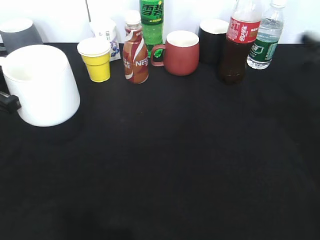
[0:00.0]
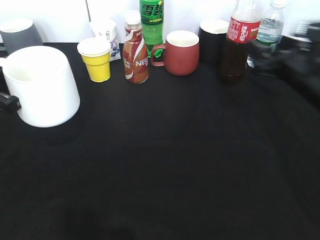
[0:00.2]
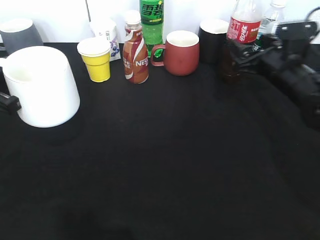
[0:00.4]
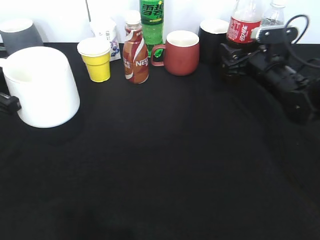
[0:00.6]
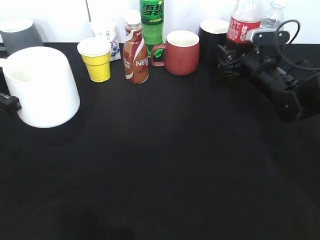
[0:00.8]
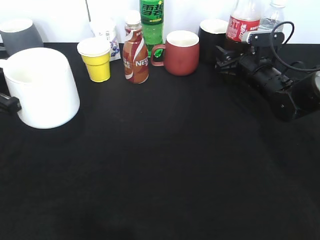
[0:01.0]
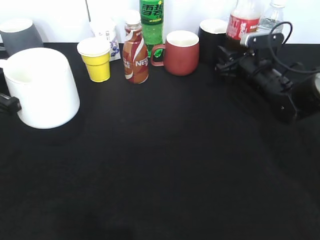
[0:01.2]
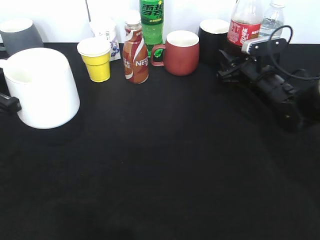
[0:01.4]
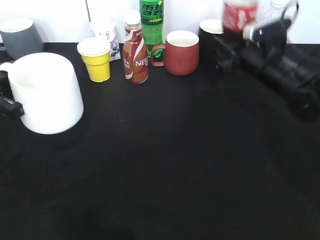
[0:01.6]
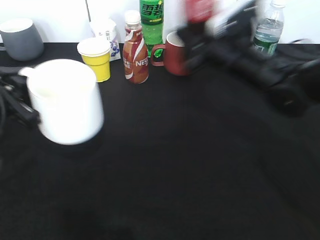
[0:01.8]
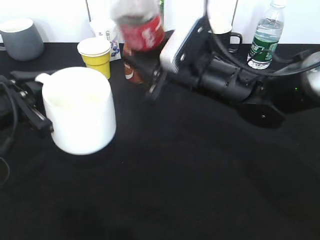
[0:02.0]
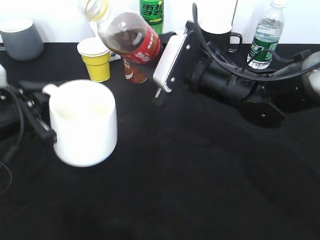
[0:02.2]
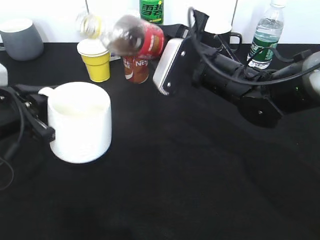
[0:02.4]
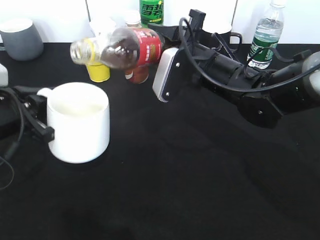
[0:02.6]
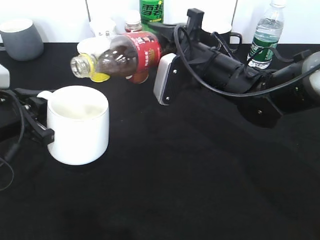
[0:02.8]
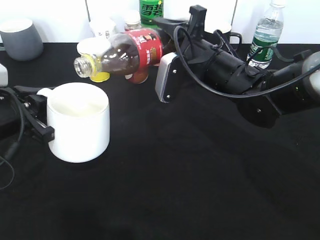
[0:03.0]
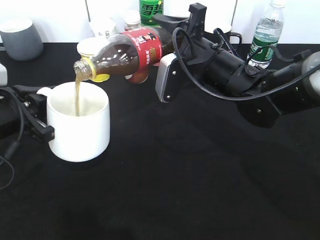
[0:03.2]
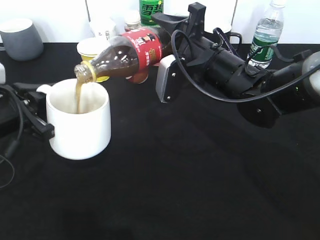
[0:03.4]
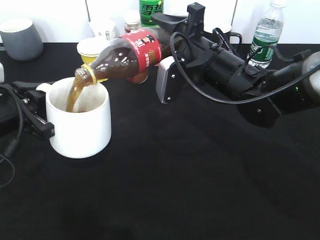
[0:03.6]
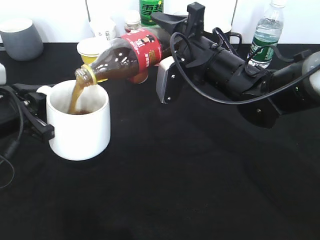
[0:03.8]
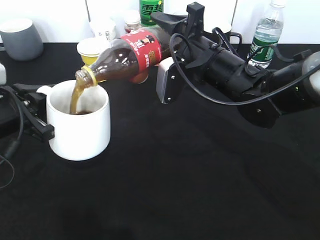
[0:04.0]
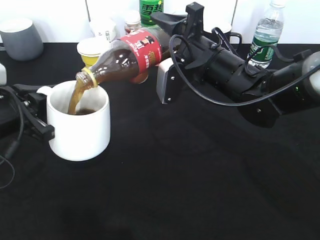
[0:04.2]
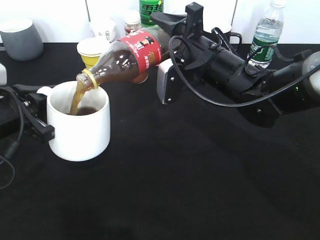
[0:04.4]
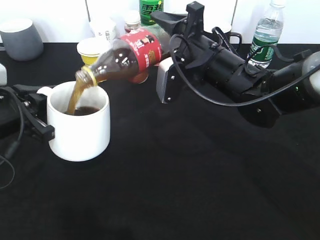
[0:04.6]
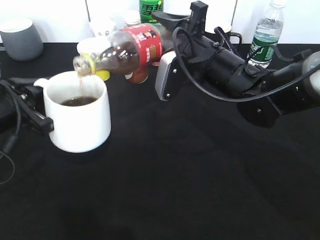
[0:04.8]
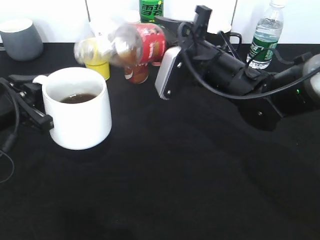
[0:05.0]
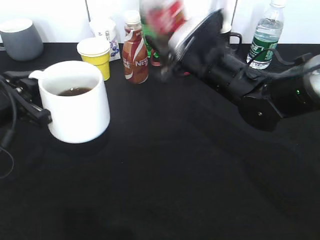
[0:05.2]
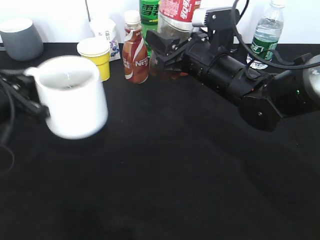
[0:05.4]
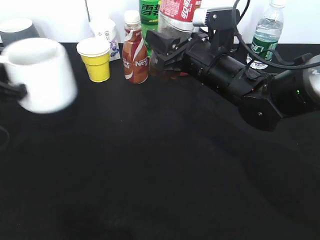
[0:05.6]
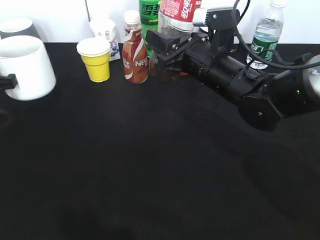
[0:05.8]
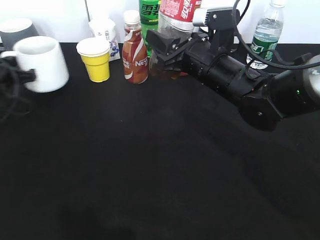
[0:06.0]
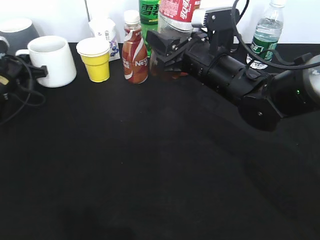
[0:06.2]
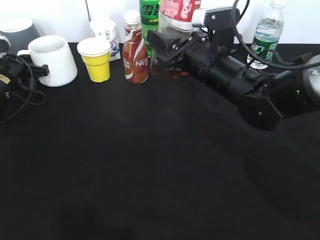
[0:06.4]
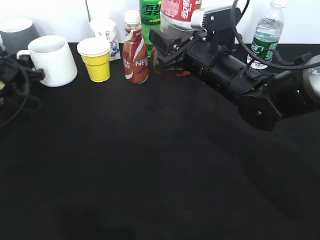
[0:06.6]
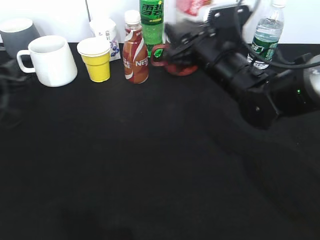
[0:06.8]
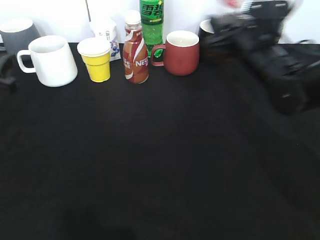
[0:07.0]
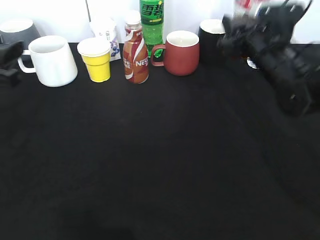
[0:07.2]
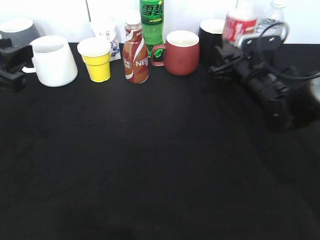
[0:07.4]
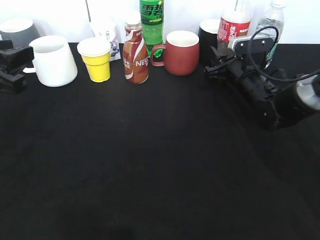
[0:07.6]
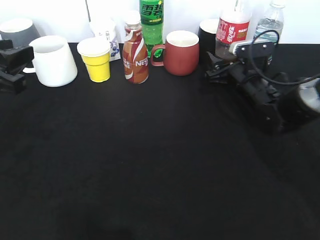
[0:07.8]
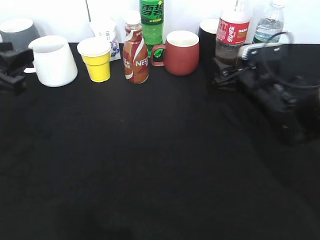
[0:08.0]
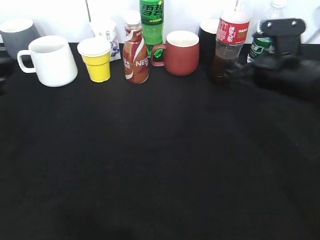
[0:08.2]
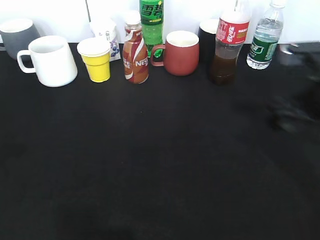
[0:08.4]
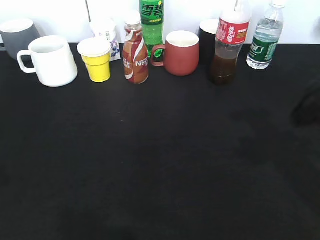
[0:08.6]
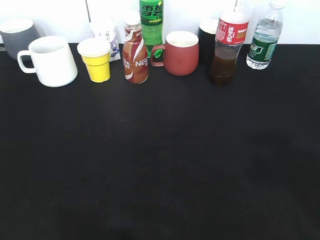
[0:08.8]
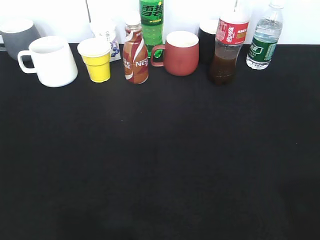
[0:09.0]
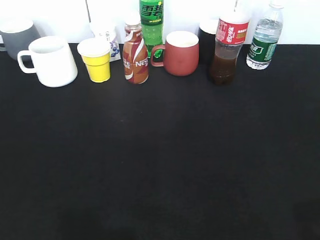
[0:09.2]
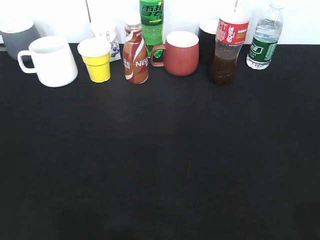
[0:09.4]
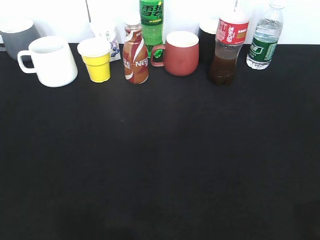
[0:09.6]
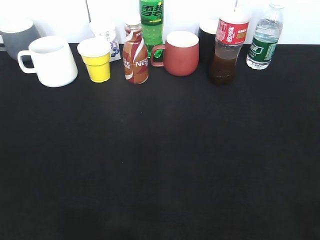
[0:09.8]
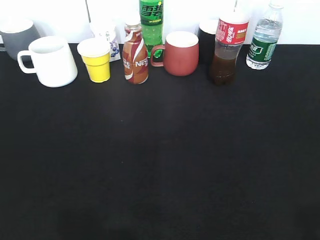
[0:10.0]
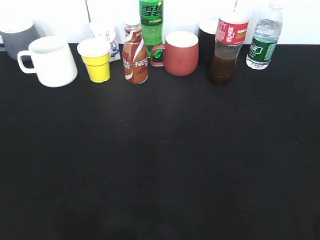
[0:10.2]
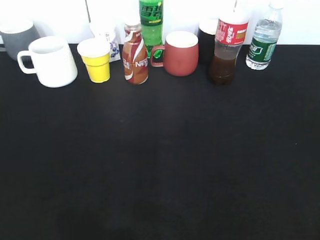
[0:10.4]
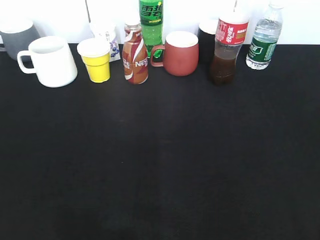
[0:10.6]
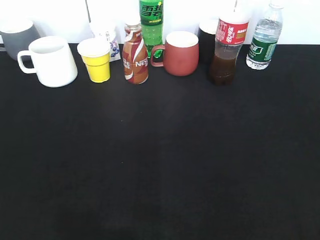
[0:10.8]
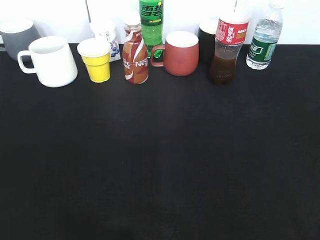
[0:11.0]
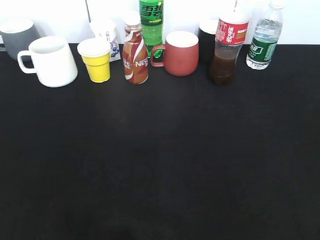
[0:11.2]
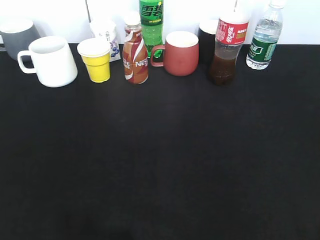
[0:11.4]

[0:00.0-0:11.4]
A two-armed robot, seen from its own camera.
Step, 0:00.0 to 0:01.2: Grasp the bottle with cola with right gripper.
Step, 0:01.4 to 0:05.0: Pour the cola from bottle to cup with right gripper.
Step, 0:05.2 to 0:06.6: Place the white cup on the table with left gripper.
Step, 0:07.0 to 0:08.2: Place the cola bottle on the table with right gripper.
0:00.0 to 0:01.4: The right gripper heads forward, downward and to the left, covering about 20 cm, and closes.
0:01.4 to 0:02.8: The left gripper shifts by roughly 5 cm. Meanwhile the right gripper travels to the left, upward and backward by some 15 cm.
0:02.8 to 0:04.2: The grippers move only a little.
0:05.6 to 0:07.2: The left gripper reaches some 15 cm forward, then returns, and opens its fingers; the right gripper moves to the right and forward, approximately 10 cm.
0:07.2 to 0:08.6: The right gripper shifts about 20 cm backward and upward, and opens its fingers.
0:08.6 to 0:10.0: Both grippers move backward, some 15 cm.
